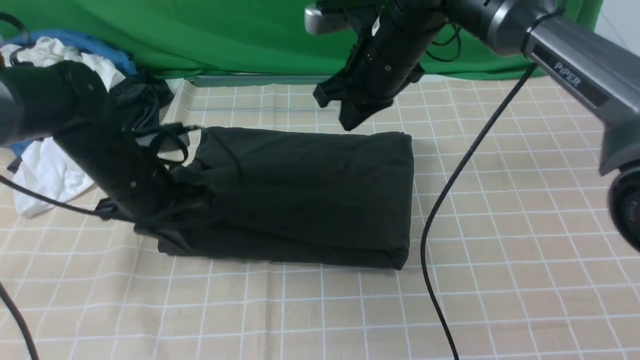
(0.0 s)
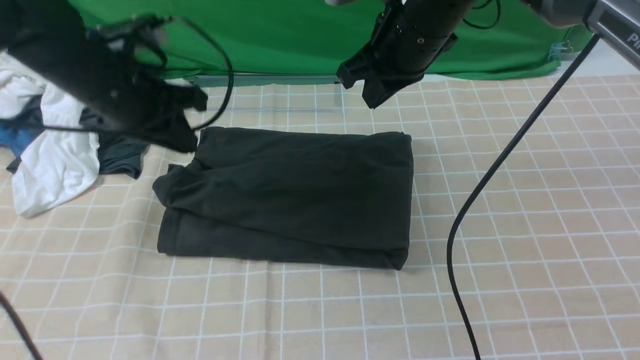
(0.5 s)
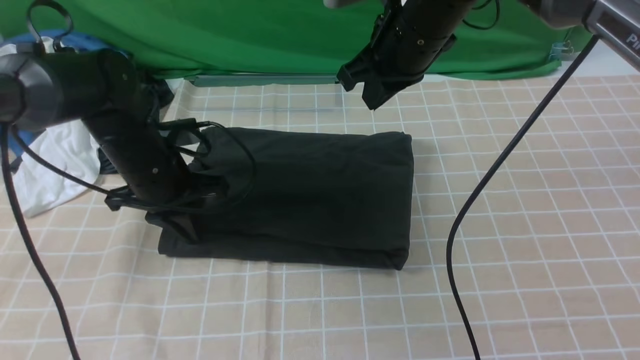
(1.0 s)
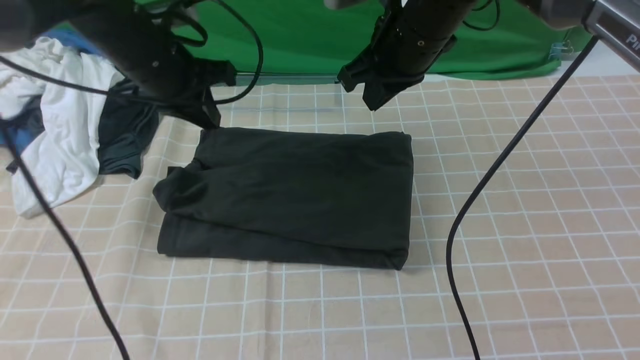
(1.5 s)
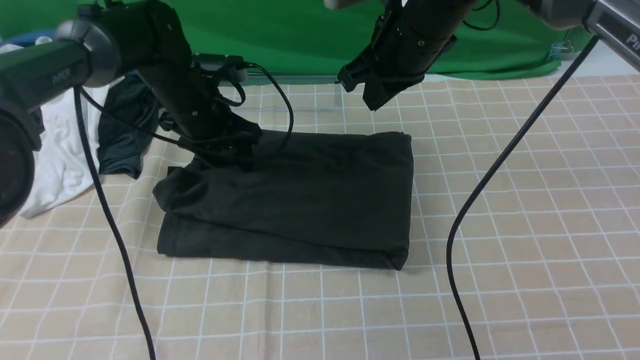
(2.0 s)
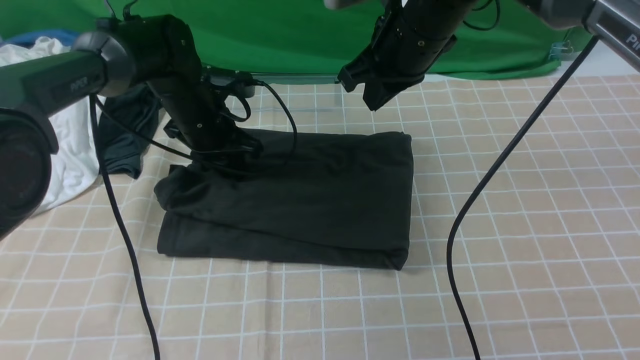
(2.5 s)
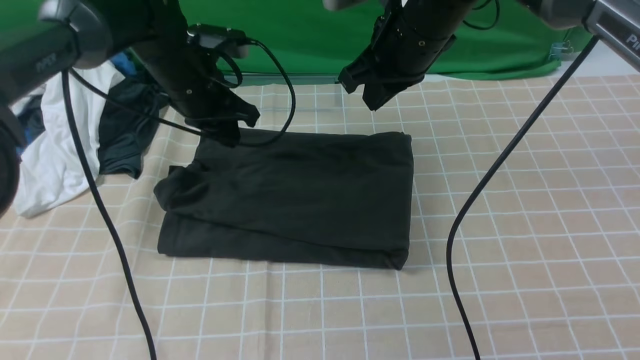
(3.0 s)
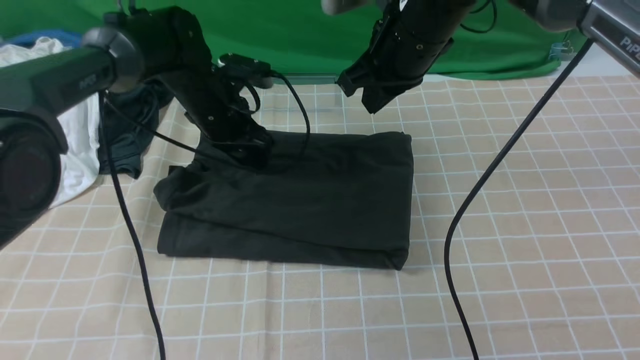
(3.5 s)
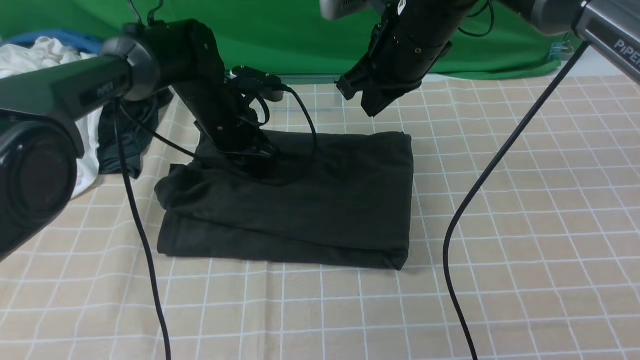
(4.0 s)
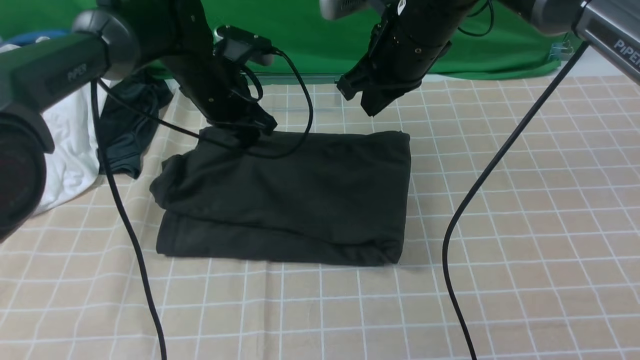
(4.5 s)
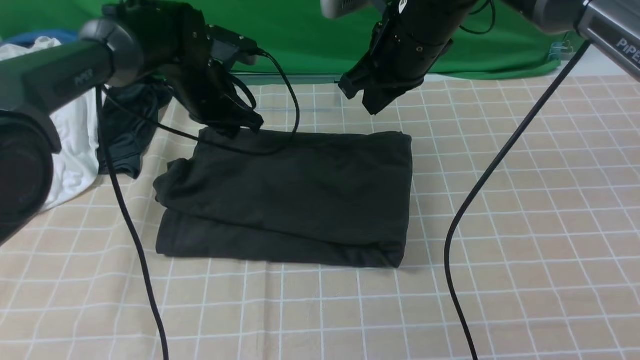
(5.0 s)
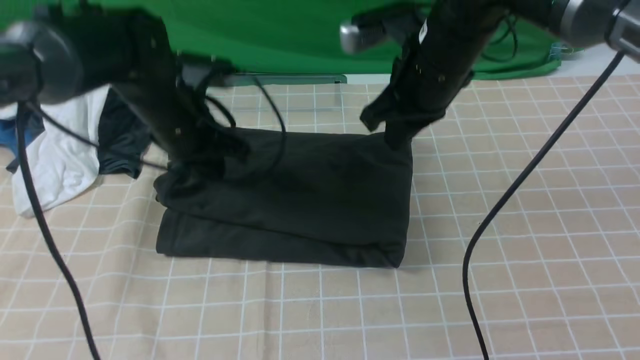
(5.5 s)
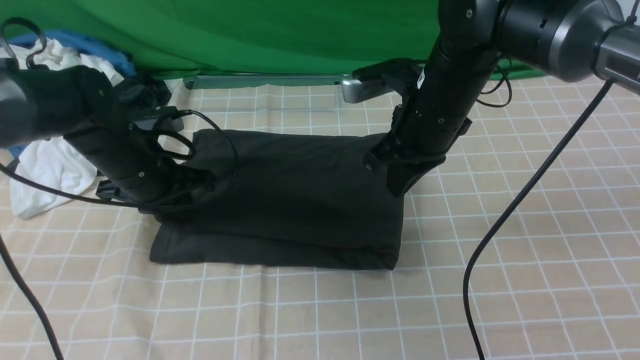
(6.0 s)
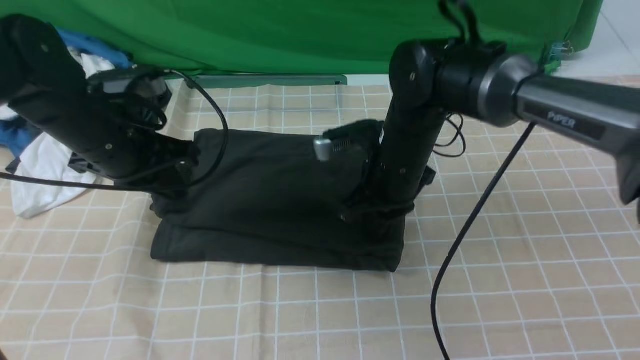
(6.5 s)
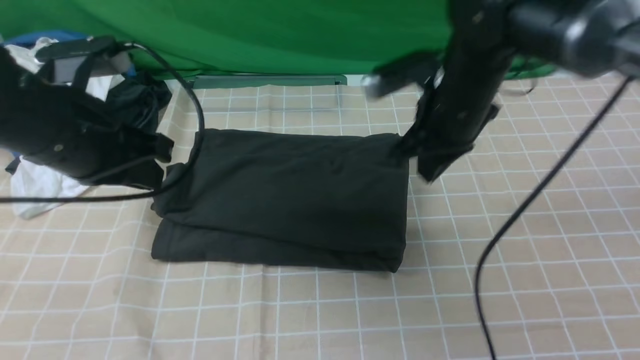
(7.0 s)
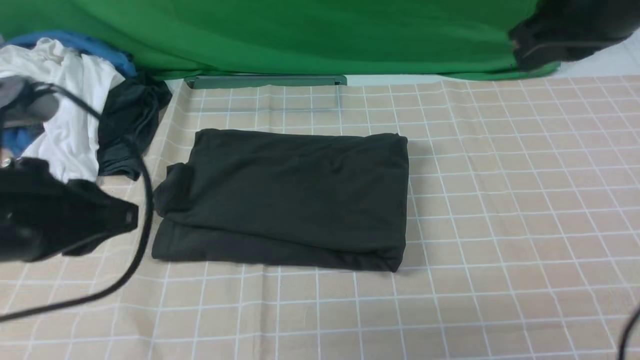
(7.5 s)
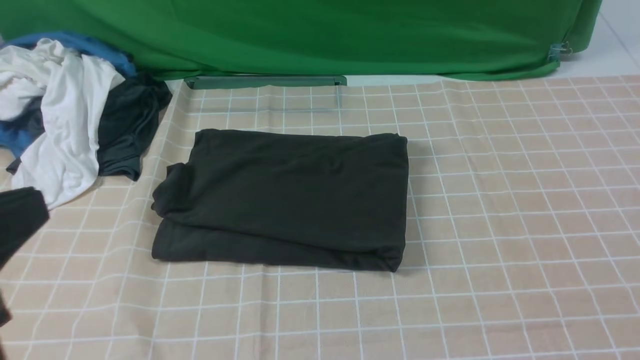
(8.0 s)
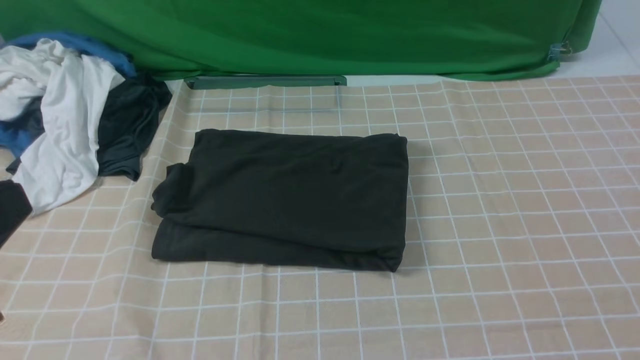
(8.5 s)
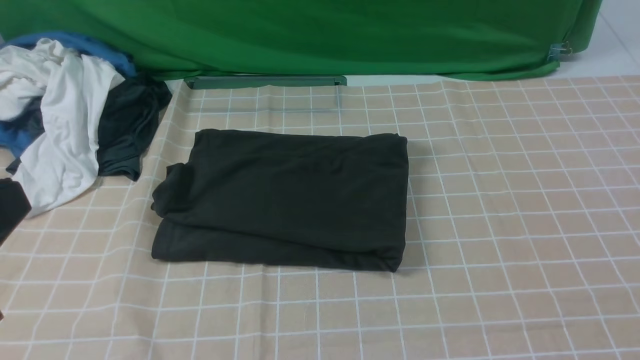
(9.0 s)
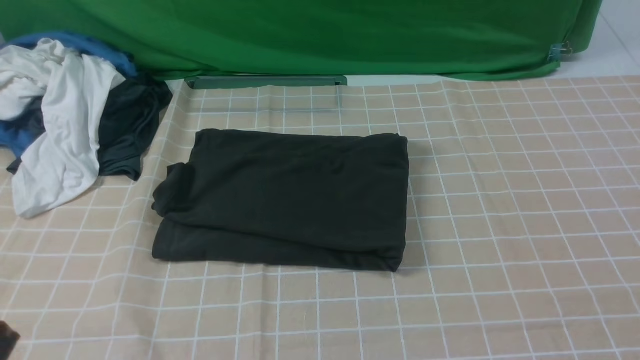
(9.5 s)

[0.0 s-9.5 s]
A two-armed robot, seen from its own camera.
0.0 to 2.0 s: The left gripper travels forward by approximately 10 cm, and opens its fingers.
2.0 to 4.0 s: The left gripper closes up.
4.0 to 5.5 s: The left gripper travels backward by about 5 cm.
5.5 to 7.5 s: The left gripper goes about 25 cm backward and upward. The right gripper travels upward, backward and to the right by about 20 cm.
7.5 to 9.5 s: The left gripper goes some 10 cm backward. The right gripper travels backward by approximately 25 cm, and opens up.
